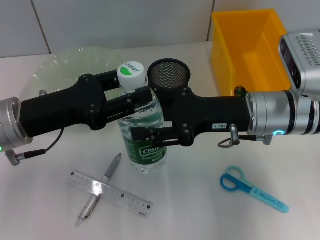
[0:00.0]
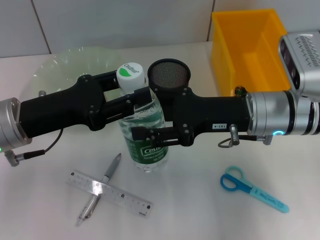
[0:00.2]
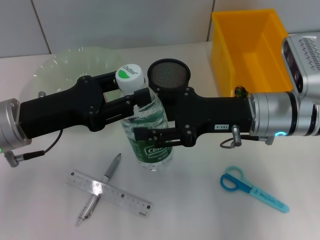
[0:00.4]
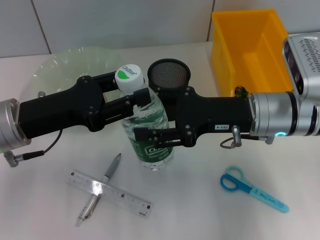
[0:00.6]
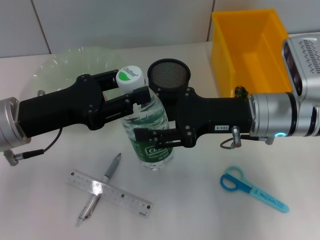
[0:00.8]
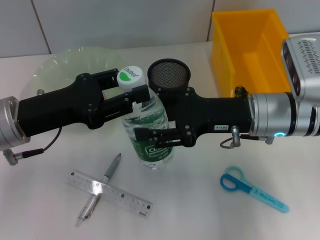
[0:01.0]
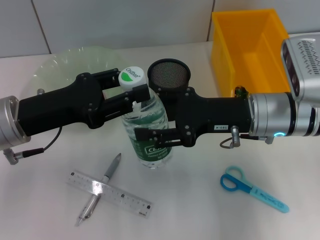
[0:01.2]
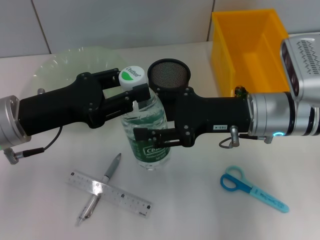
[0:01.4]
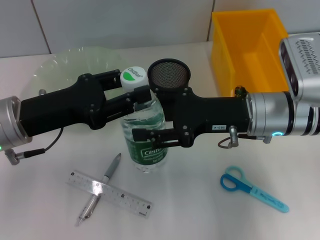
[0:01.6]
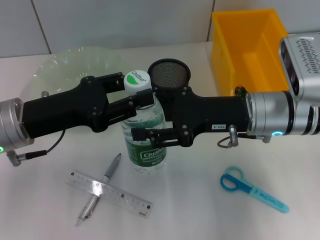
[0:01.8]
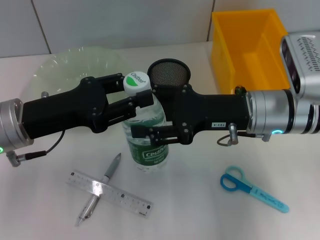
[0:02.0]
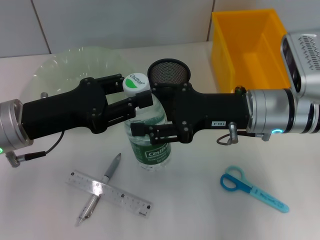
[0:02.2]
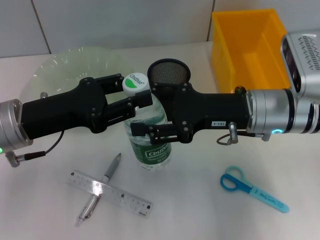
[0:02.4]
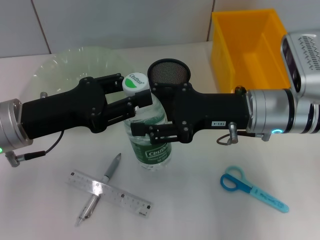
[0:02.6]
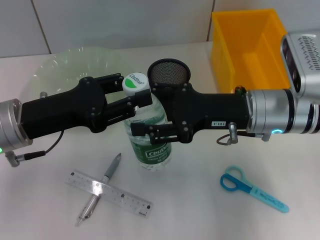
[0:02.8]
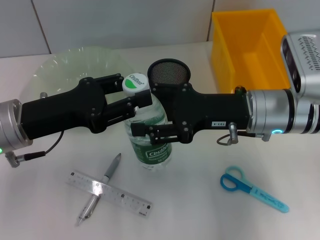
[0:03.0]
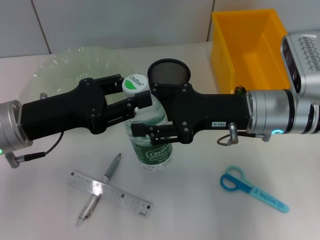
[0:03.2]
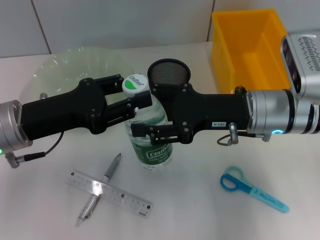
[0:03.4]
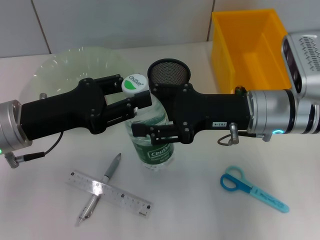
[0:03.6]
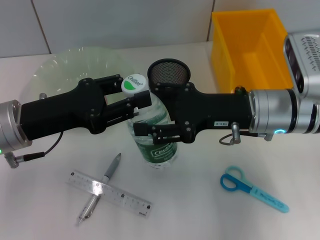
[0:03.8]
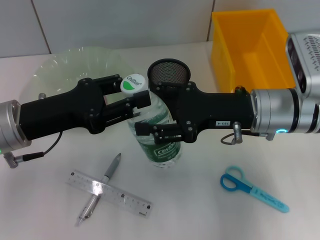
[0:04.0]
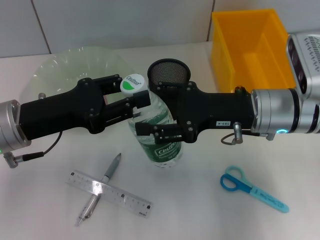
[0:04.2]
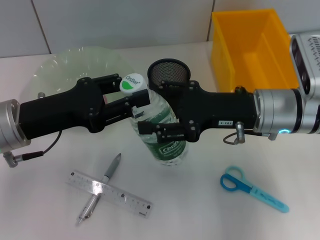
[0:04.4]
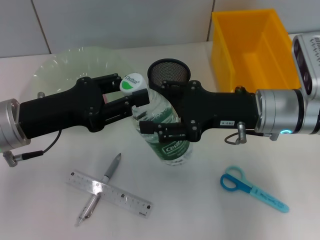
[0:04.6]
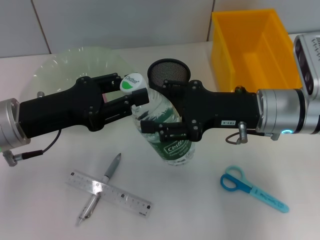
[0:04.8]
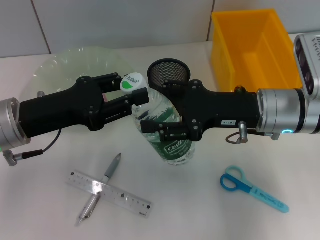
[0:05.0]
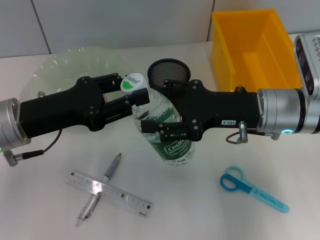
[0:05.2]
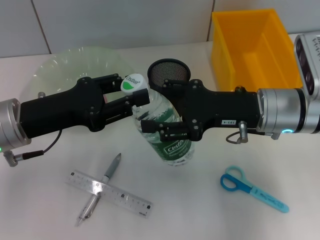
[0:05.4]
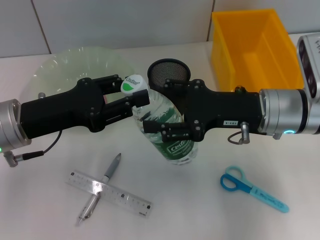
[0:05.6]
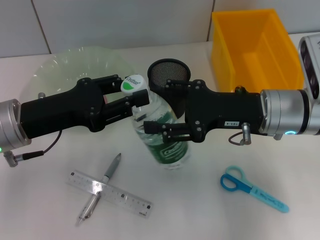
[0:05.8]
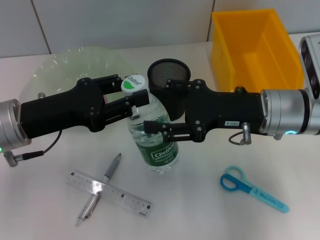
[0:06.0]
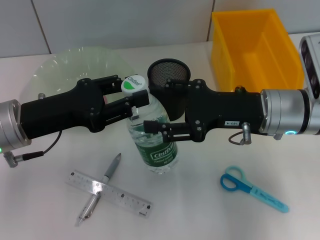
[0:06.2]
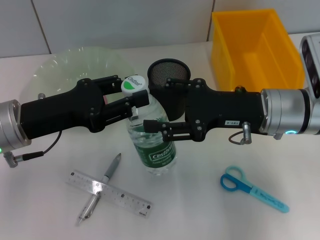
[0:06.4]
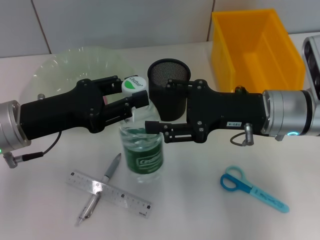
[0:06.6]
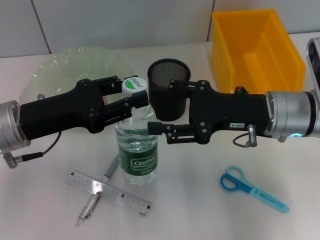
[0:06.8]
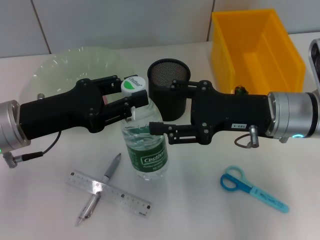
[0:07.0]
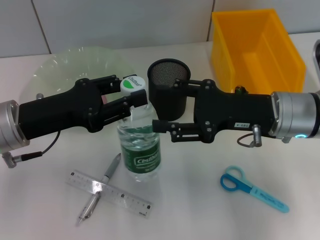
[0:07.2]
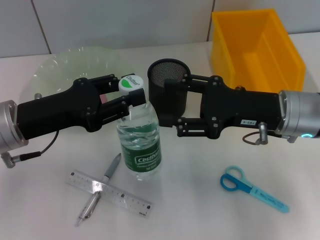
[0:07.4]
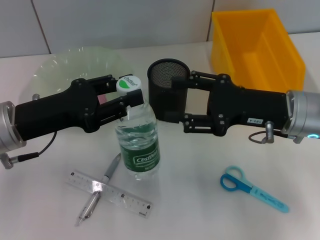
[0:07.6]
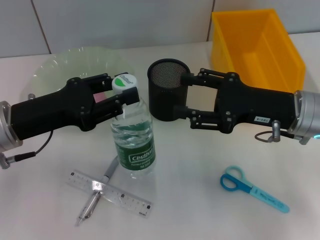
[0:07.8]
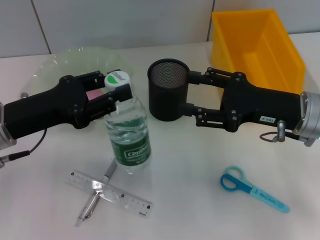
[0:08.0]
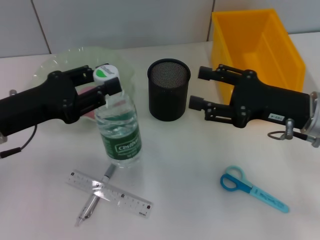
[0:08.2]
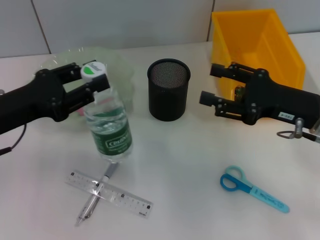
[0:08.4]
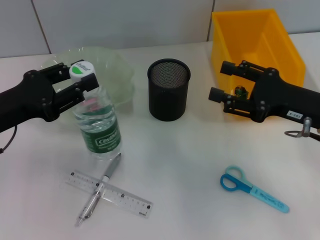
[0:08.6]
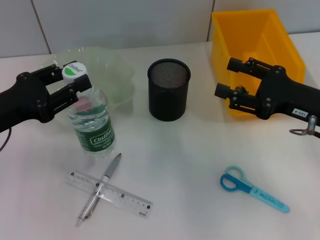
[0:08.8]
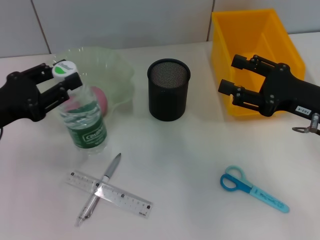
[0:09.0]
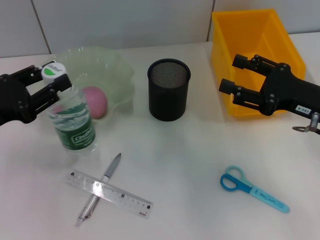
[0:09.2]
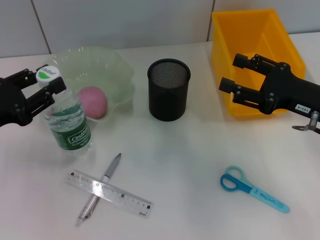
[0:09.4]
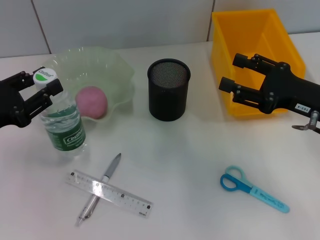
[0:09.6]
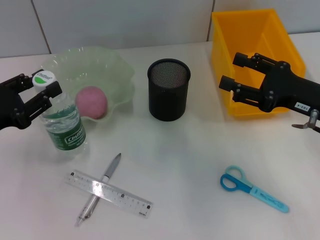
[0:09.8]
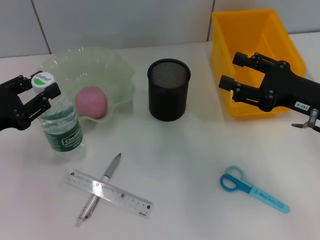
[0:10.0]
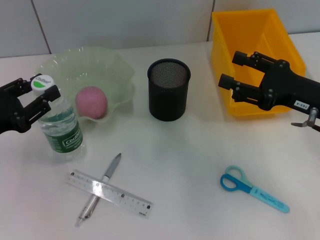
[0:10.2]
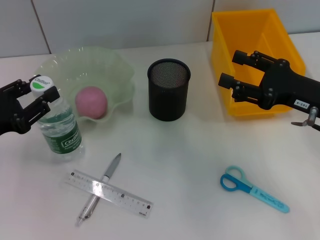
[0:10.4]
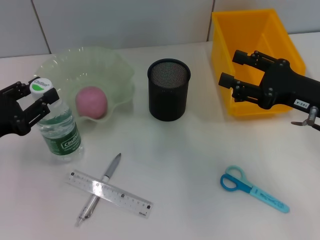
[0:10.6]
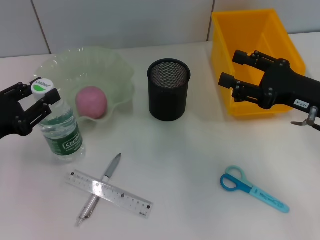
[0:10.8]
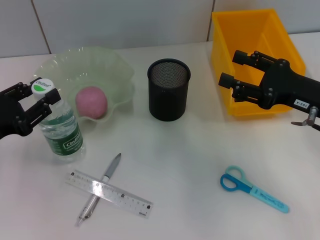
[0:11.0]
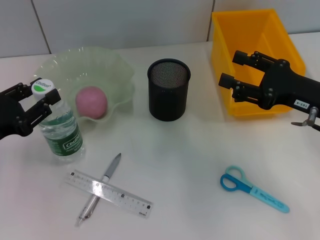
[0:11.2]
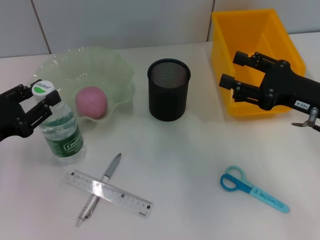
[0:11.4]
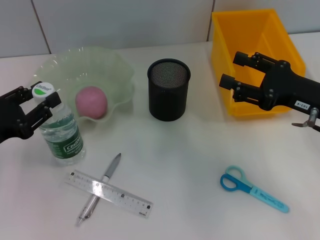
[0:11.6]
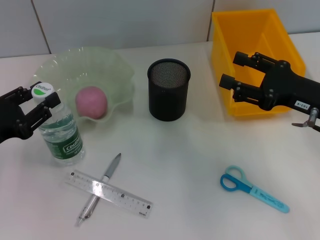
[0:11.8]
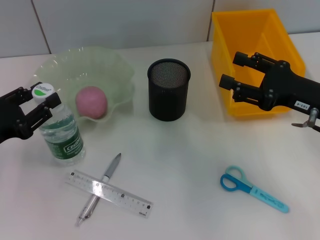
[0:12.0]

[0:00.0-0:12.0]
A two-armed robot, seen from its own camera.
Step, 0:00.0 to 0:06.8: Pass the water bottle from the right hand to the left hand.
0:00.0 to 0:03.0: Neither gripper changes place.
0:03.0 to 0:04.4: The two grippers keep their place.
0:04.4 to 0:06.0: Both grippers stay put.
0:06.0 to 0:07.6: The grippers stay close to where they were, moving slightly.
0:07.6 to 0:09.0: The right gripper is displaced to the right by about 5 cm. The left gripper heads to the left, covering some 5 cm.
0:09.0 to 0:10.4: The grippers make only small movements.
0:10.4 to 0:12.0: The two grippers keep their place.

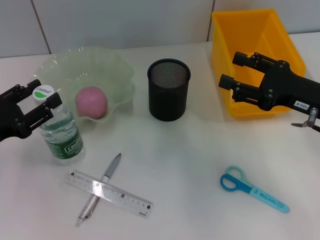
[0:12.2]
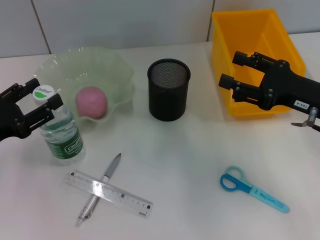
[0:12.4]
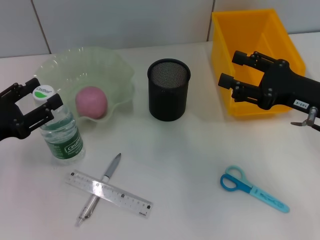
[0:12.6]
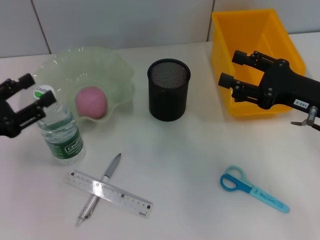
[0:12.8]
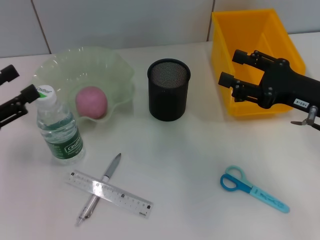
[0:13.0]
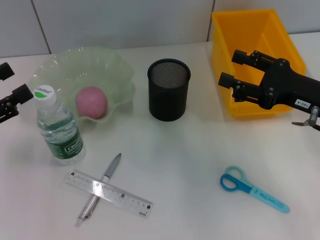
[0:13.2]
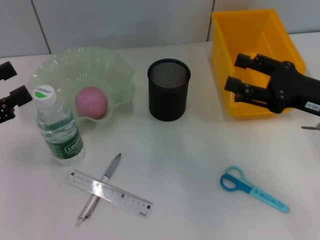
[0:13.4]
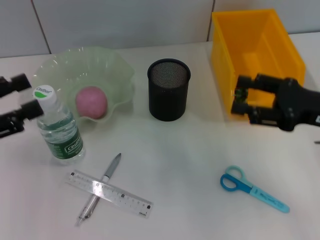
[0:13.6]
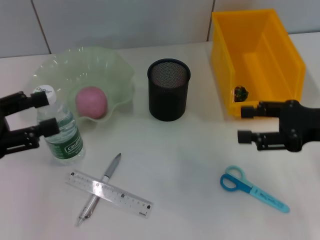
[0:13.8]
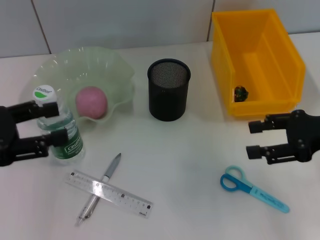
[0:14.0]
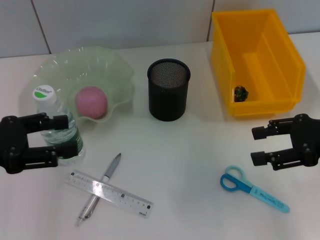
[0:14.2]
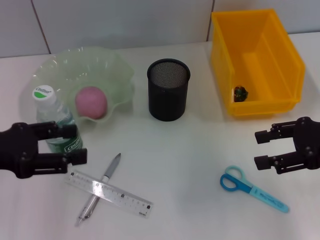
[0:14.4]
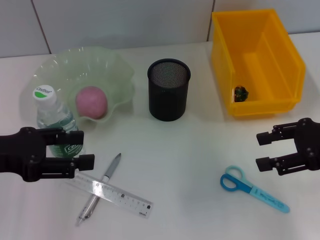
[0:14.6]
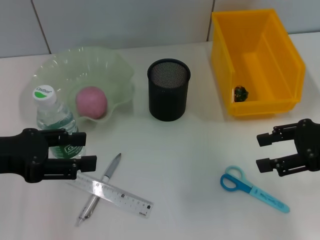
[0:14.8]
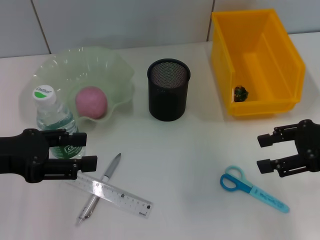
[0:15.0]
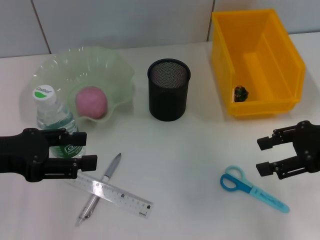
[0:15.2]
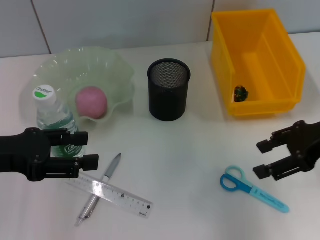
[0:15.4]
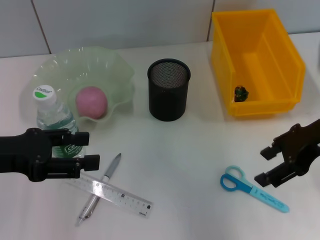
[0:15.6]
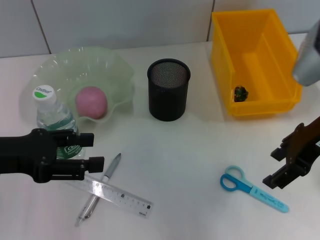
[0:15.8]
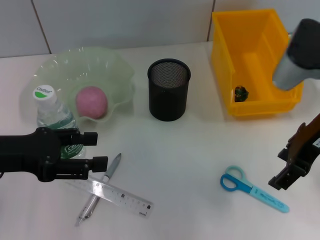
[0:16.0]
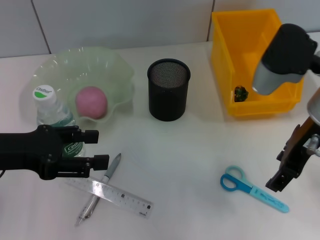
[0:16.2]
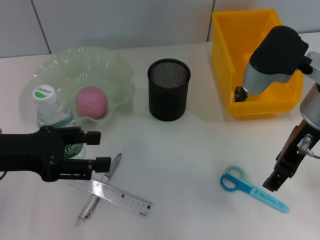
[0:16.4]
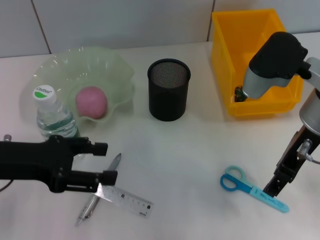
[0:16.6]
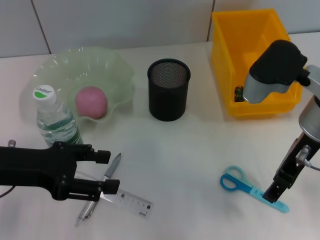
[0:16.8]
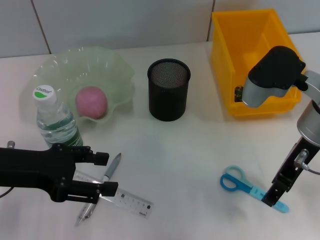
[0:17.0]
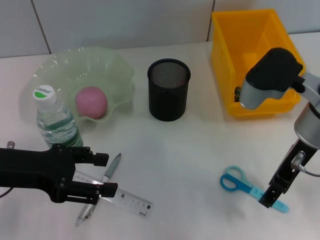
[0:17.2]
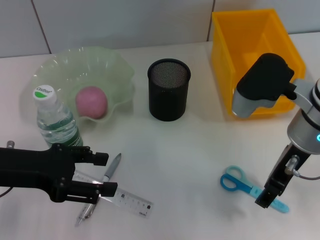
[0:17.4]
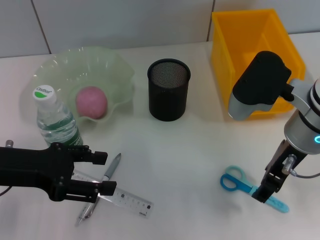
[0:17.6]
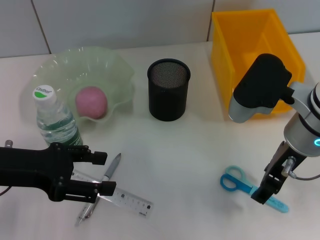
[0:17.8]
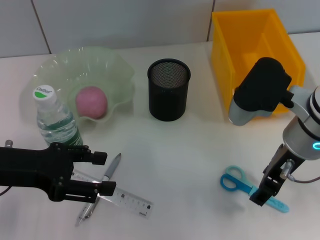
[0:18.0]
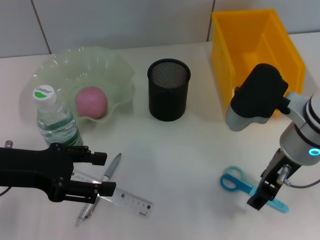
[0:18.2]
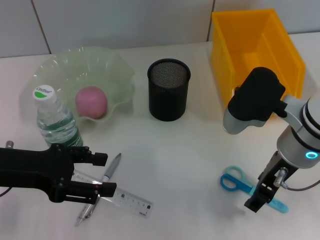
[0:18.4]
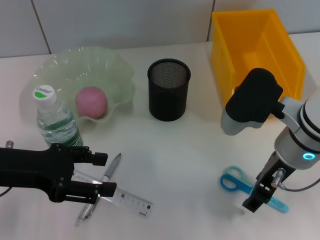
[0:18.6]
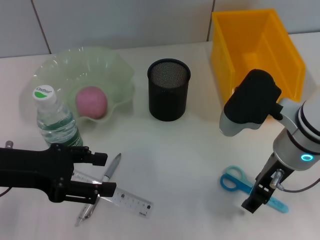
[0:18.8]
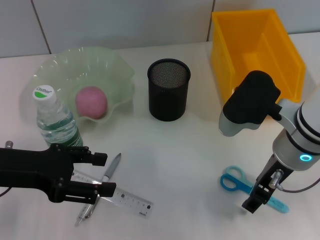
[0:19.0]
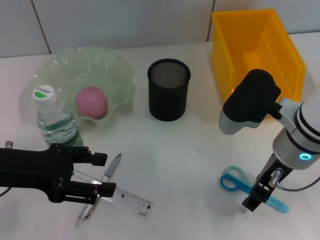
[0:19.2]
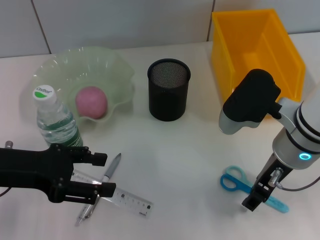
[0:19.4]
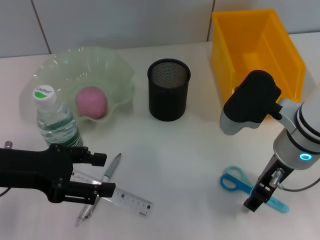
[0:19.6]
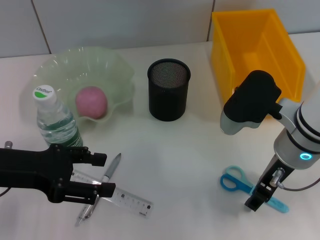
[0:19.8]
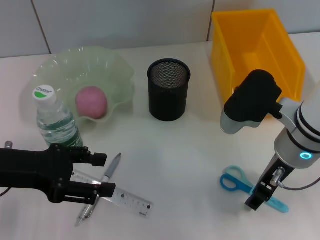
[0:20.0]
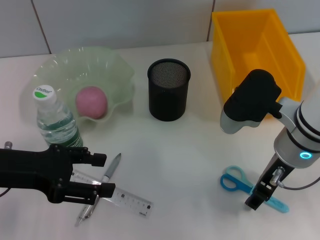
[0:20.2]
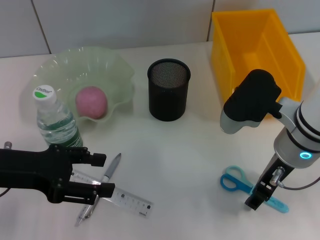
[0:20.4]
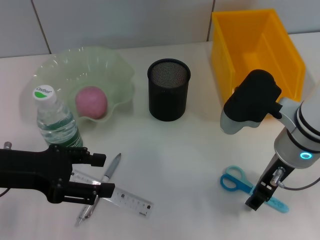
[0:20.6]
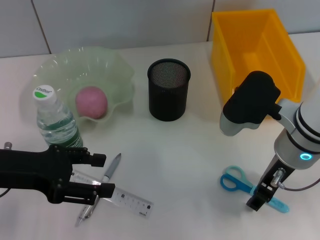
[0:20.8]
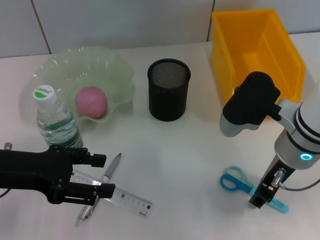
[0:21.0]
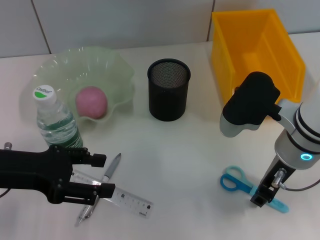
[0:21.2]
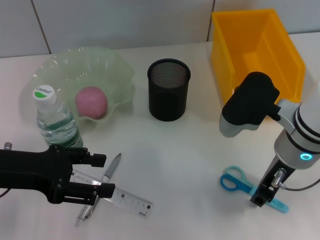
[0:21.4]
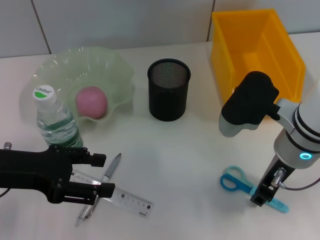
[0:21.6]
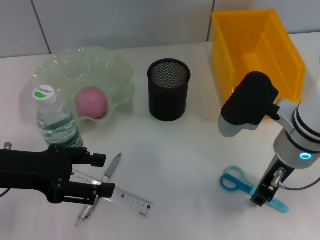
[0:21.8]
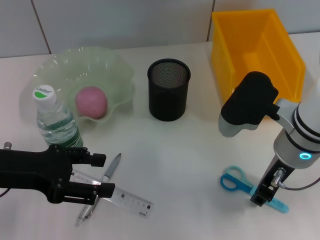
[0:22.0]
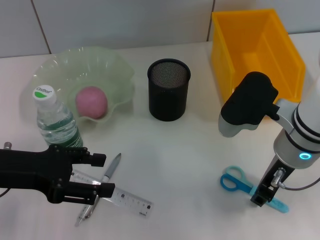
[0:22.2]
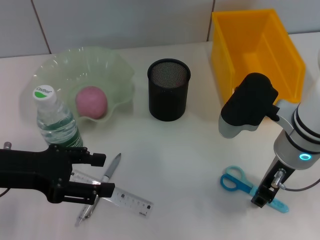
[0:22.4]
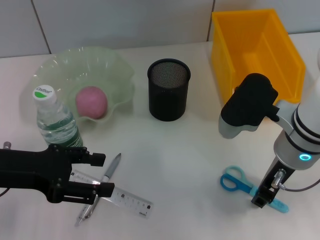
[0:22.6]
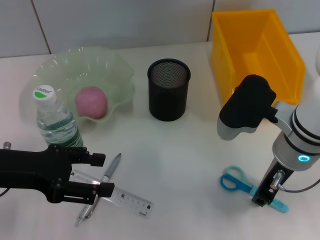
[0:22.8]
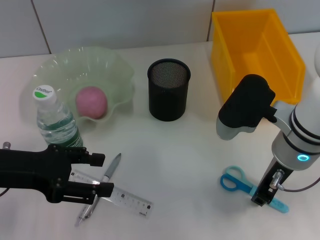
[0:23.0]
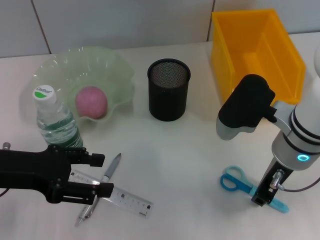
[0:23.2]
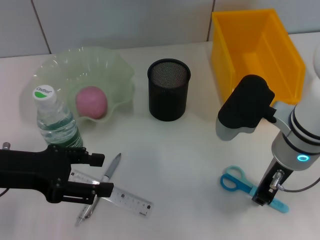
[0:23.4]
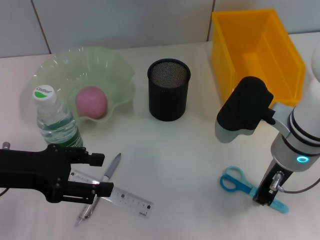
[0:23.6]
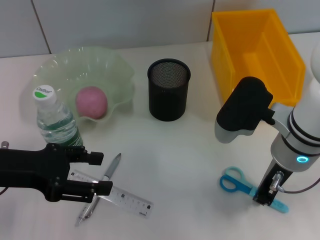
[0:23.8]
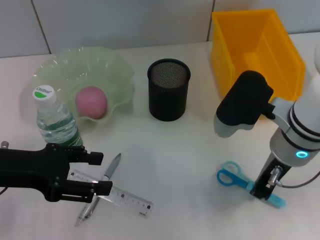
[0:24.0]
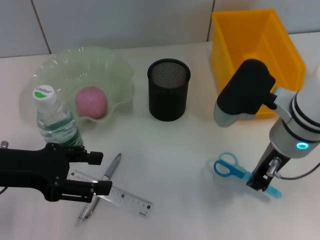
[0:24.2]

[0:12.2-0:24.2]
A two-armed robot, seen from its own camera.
0:12.2 to 0:13.8: The left gripper goes approximately 5 cm upward, and opens up.
0:15.2 to 0:16.6: The right gripper travels to the left by roughly 10 cm.
0:16.6 to 0:18.2: The grippers move only a little.
0:18.2 to 0:21.2: Both grippers stay put.
0:21.2 to 0:22.6: Both grippers stay put.
0:22.6 to 0:24.2: The grippers make only small movements.
